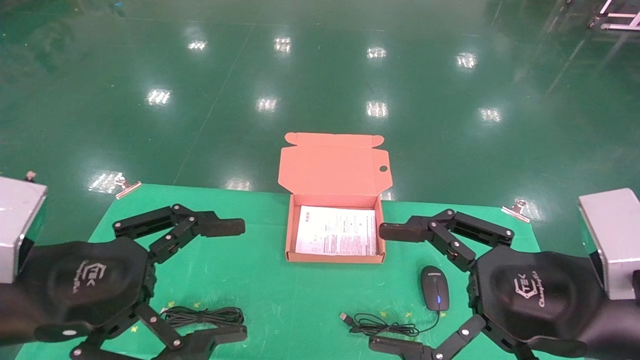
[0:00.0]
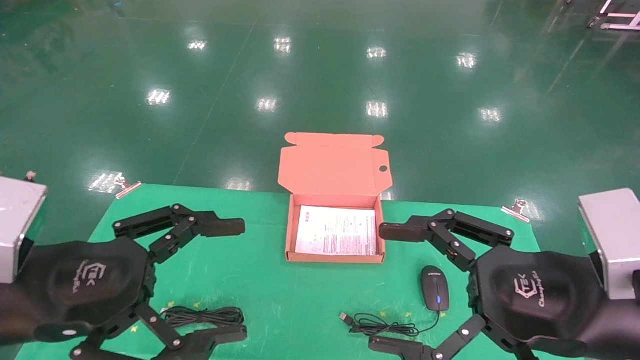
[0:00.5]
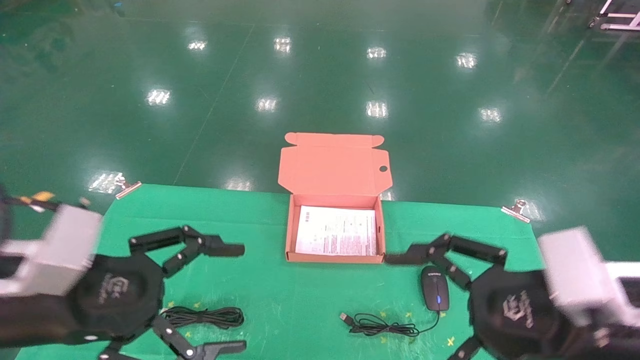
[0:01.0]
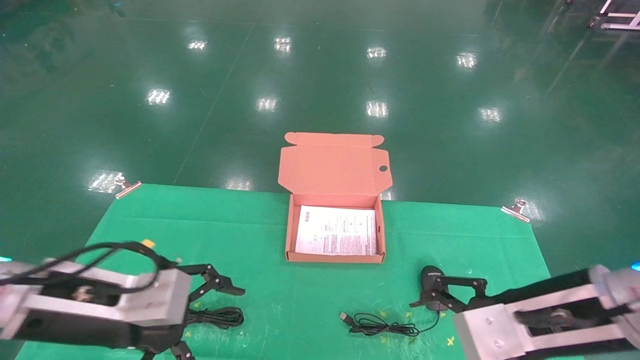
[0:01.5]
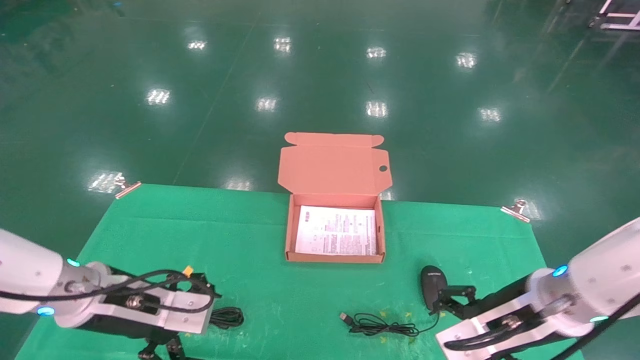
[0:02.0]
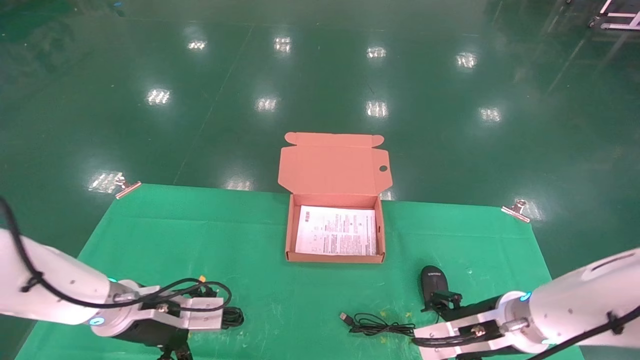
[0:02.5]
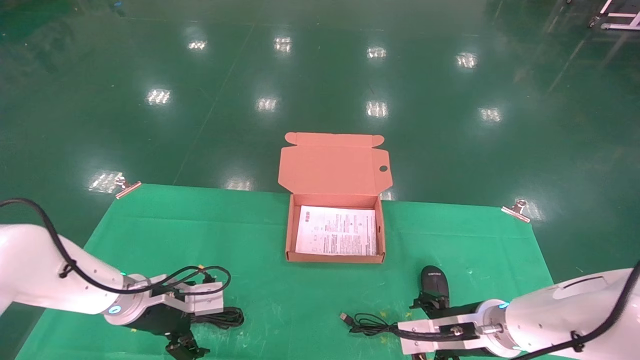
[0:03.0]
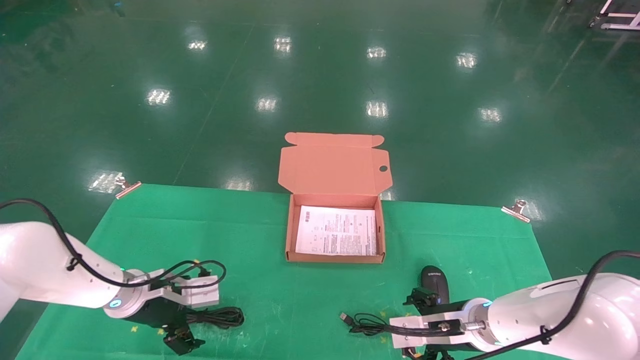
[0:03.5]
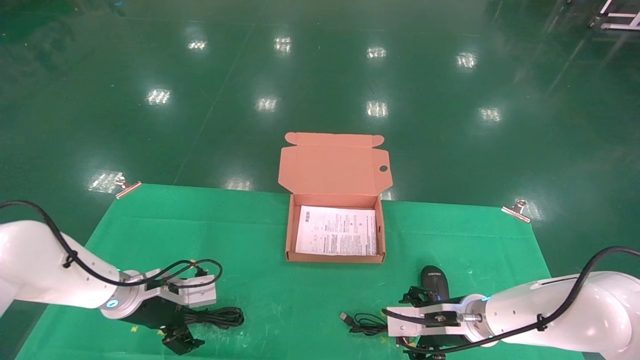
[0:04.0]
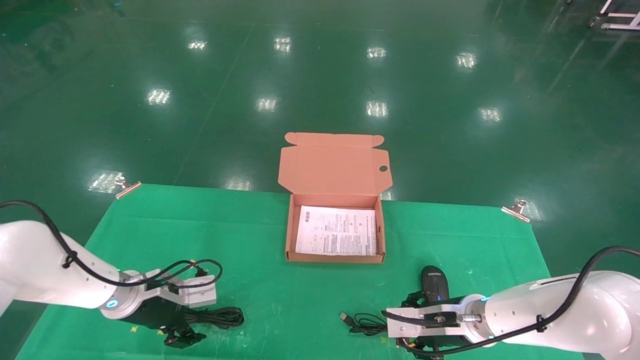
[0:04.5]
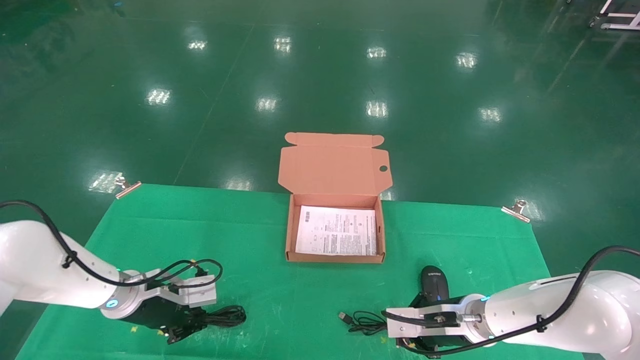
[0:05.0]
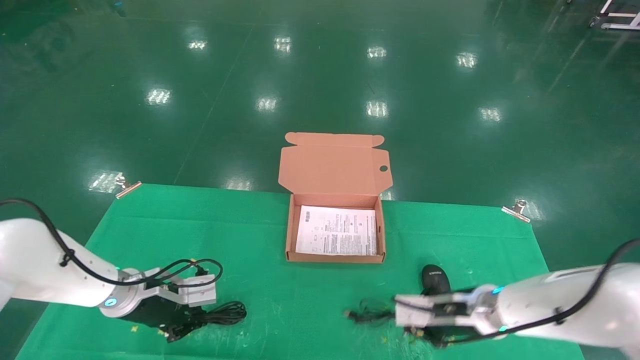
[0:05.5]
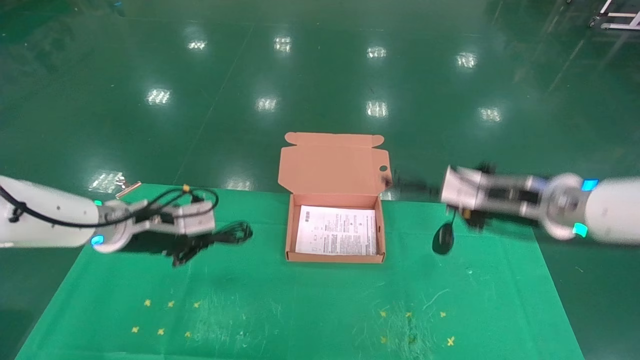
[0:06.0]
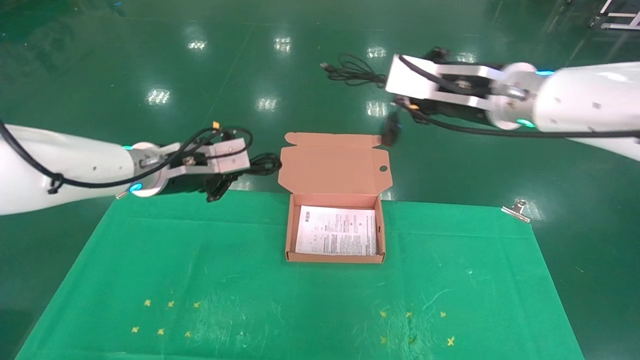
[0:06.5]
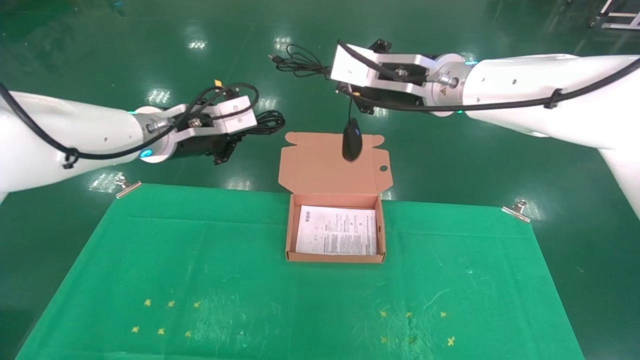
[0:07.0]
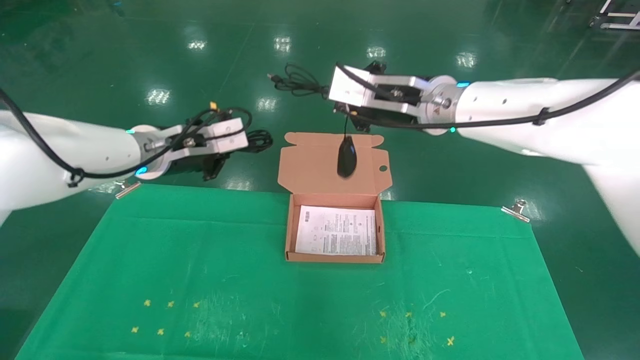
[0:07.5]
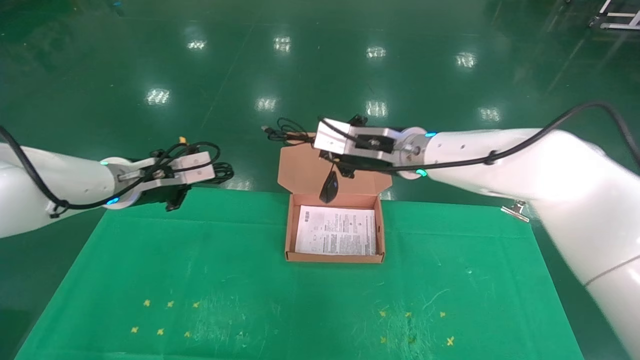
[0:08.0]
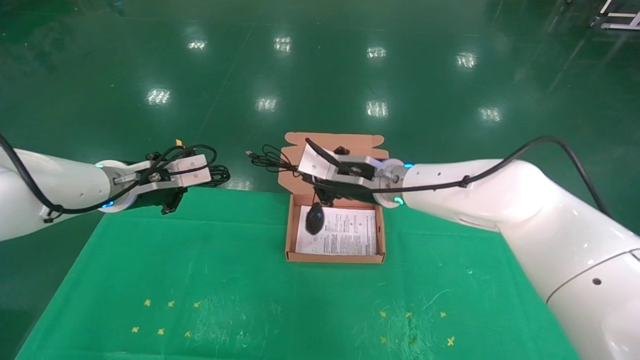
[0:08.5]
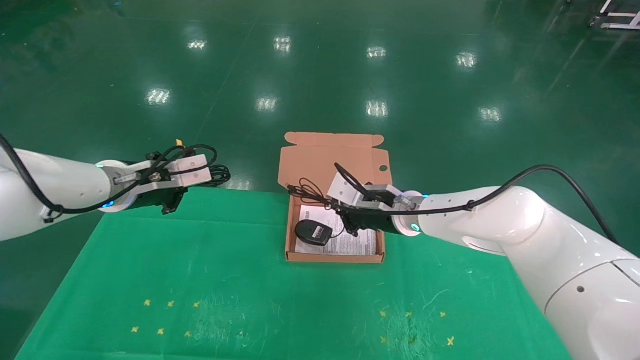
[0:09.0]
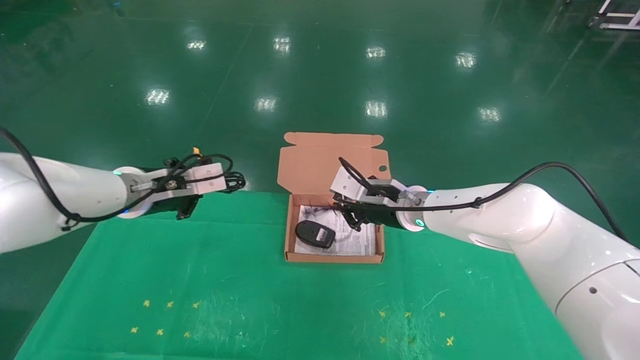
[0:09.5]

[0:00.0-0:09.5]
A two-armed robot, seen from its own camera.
Task of the whole recording: grasp data cable left put into box grasp mouse right put into box.
Step, 0:01.0 to 0:05.5: Grab and pick up both the mouse and power cord from the accessory packaging area at the same time.
0:00.0 to 0:02.0: Both grippers move forward and downward, about 15 cm.
0:02.0 to 0:04.0: The left gripper goes about 15 cm forward and downward; the right gripper heads downward and forward, covering some 15 cm.
0:04.0 to 0:05.5: The left gripper closes; the right gripper closes its fingers.
0:05.5 to 0:07.5: The right gripper goes about 30 cm upward and to the left. The left gripper moves upward, some 20 cm.
0:07.5 to 0:09.5: The right gripper heads downward, covering approximately 15 cm; the left gripper moves downward, roughly 5 cm.

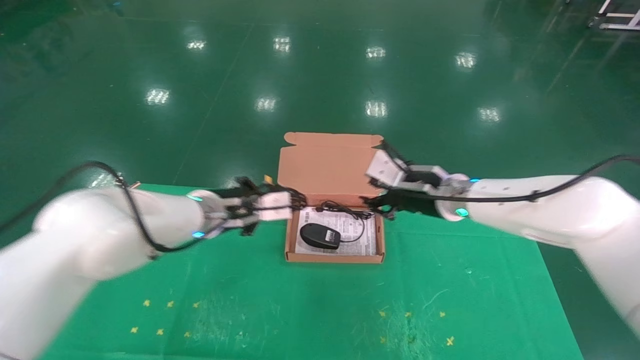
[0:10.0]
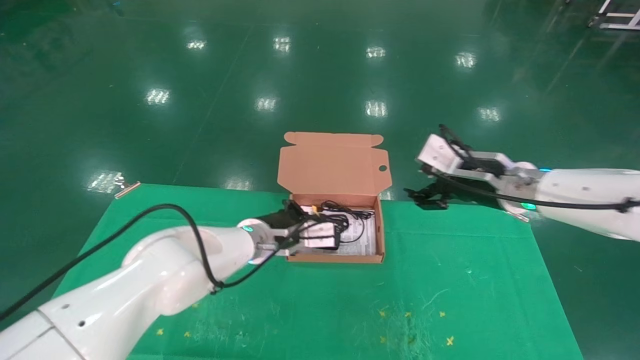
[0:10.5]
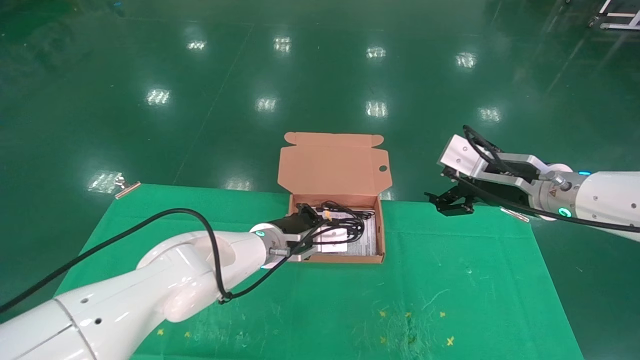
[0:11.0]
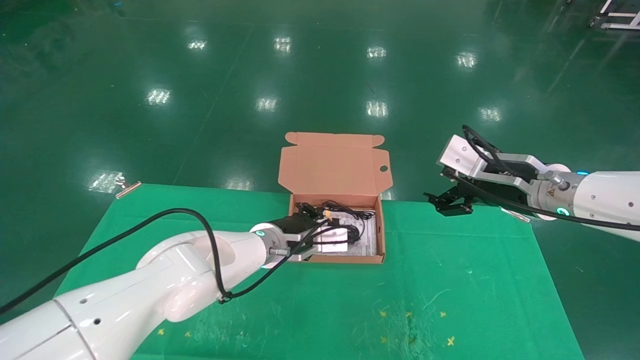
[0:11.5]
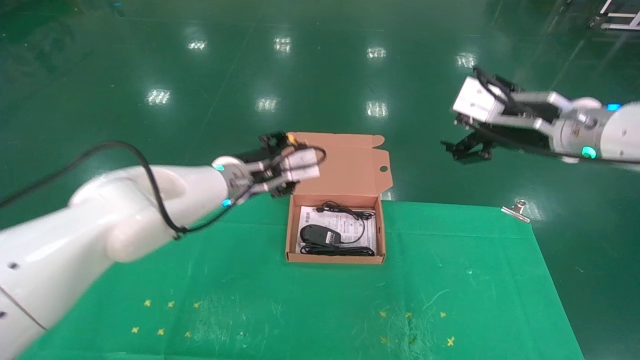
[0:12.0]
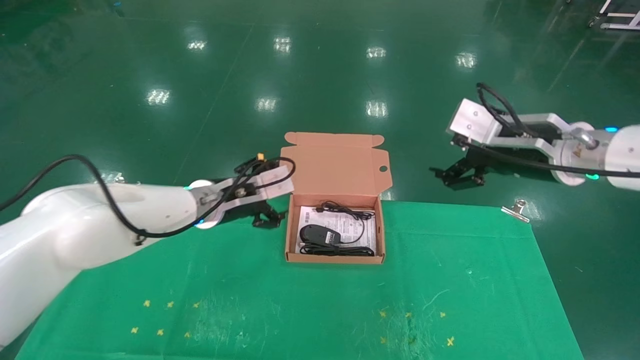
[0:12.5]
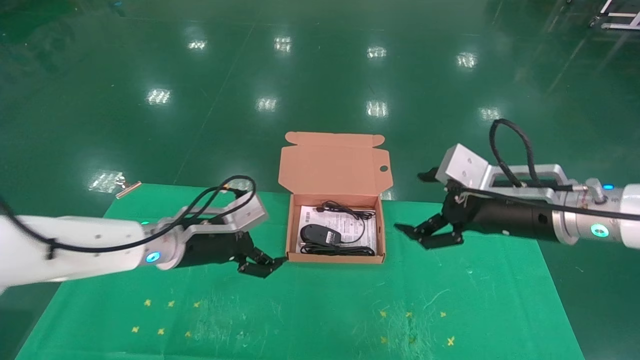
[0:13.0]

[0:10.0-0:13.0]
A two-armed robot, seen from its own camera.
Task of the whole recording: grasp data cable left put into box grasp mouse right put into box.
0:10.0 to 0:11.5: The left gripper heads to the right and downward, covering some 10 cm. The right gripper goes approximately 10 cm to the right and backward, and opens up.
0:11.5 to 0:13.0: The right gripper shifts about 5 cm backward; the left gripper is displaced to the left and backward by roughly 15 cm, and opens.

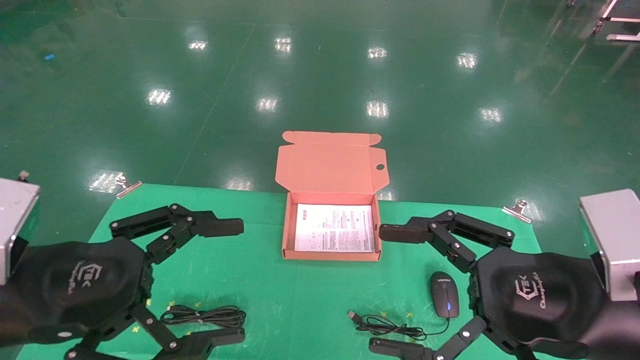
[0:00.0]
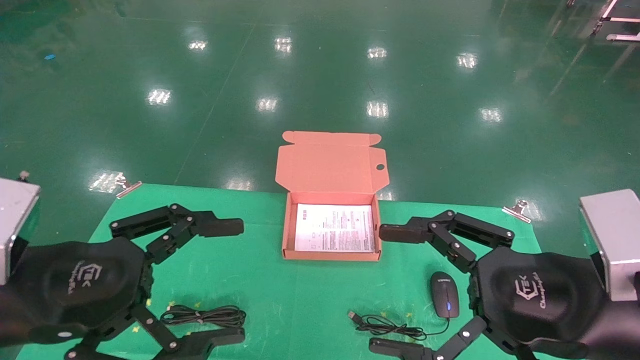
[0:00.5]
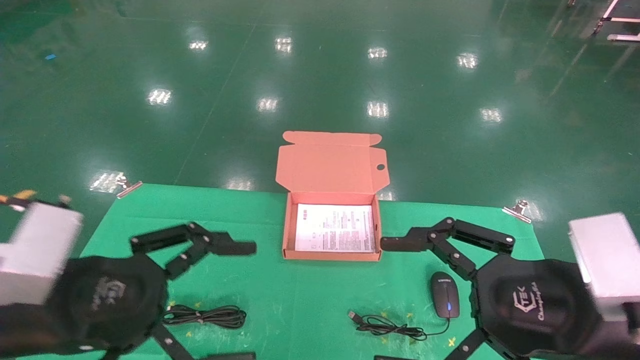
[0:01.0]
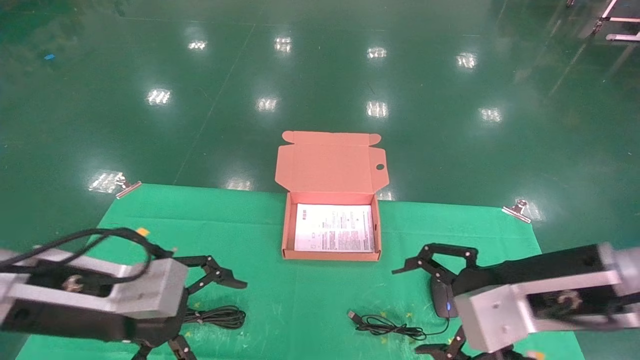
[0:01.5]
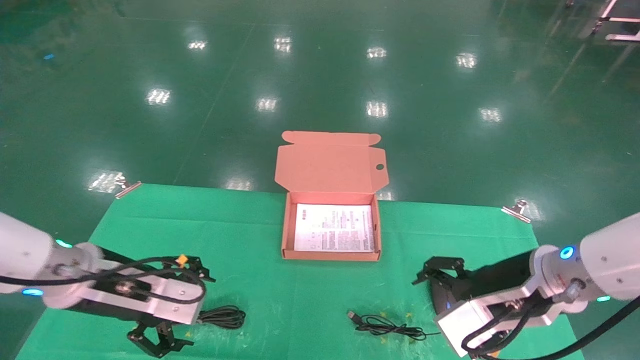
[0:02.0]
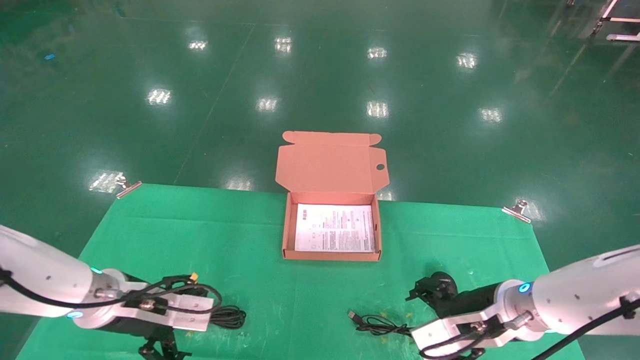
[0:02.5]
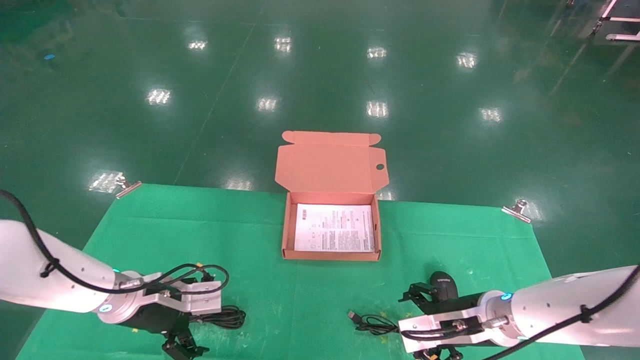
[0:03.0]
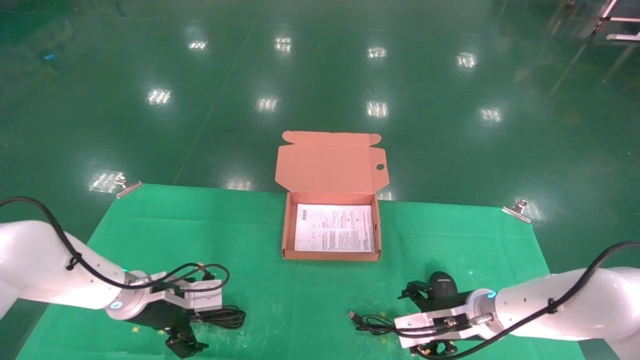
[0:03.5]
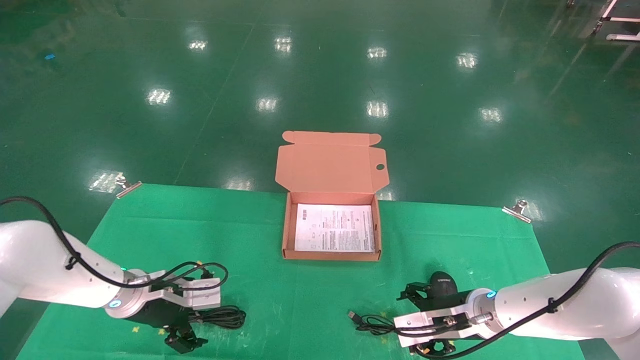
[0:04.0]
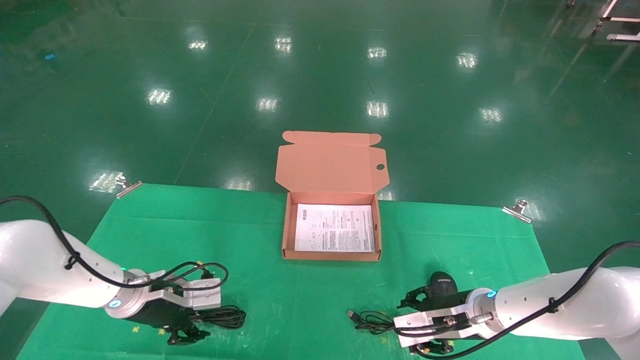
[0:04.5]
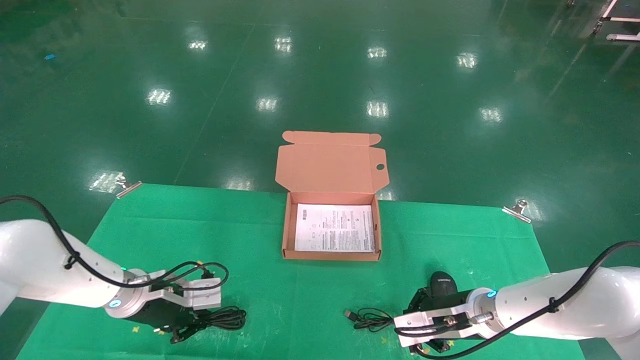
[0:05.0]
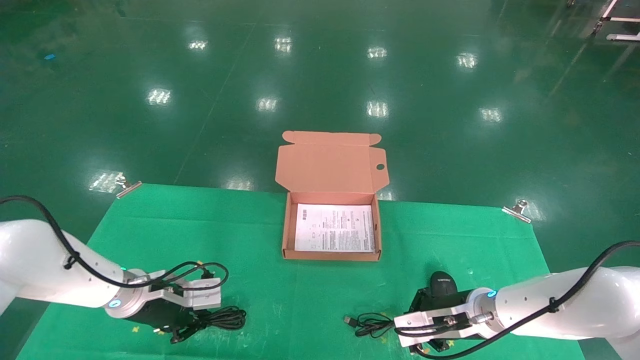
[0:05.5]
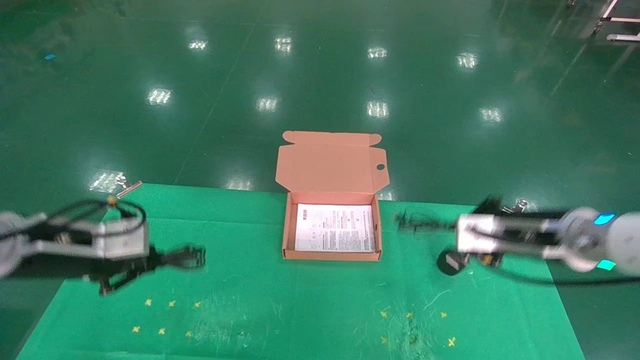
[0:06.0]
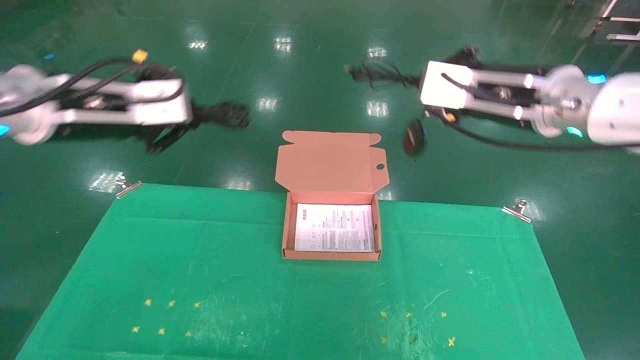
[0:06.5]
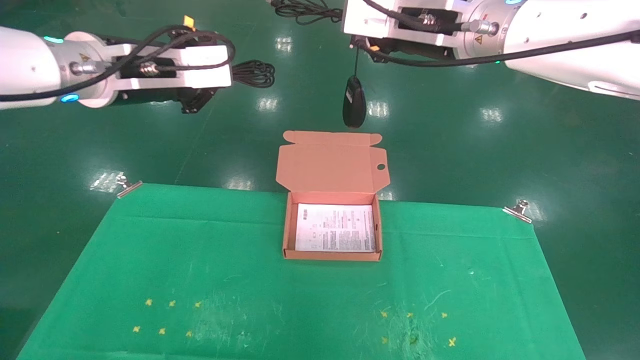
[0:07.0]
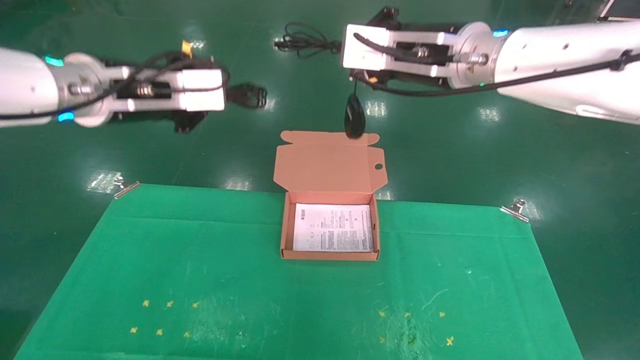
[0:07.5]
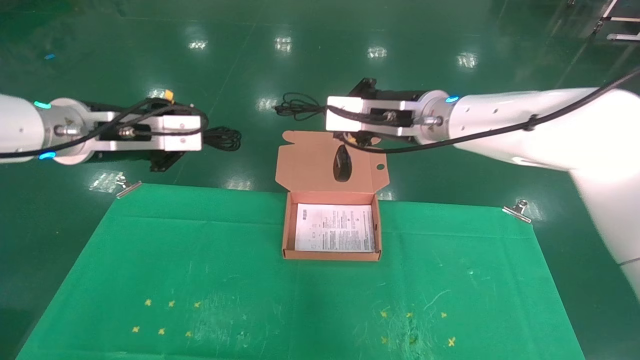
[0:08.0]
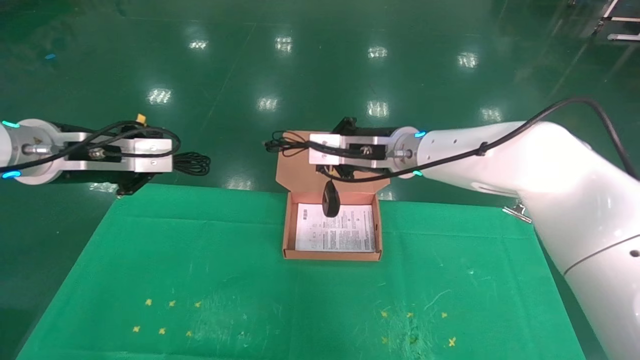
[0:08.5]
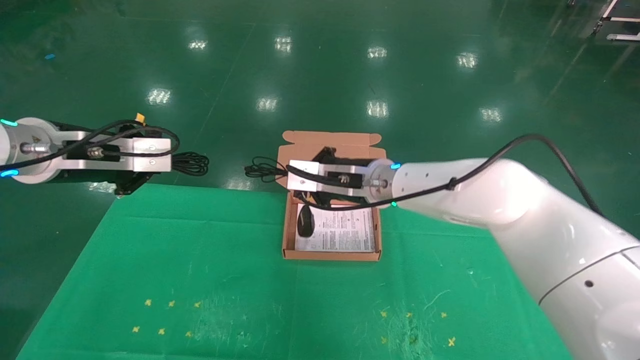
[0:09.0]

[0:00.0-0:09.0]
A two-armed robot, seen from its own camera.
Task of the whole recording: grasp data cable left put into box grasp mouse right put into box.
Step, 0:01.0 to 0:05.5: Grab and pick up both the mouse and power cord from the accessory packaging area at the same time.
0:00.0 to 0:02.0: The grippers both shift forward and downward by some 15 cm.
0:02.0 to 0:04.5: The right gripper shifts some 15 cm downward and forward, and closes its fingers, while the left gripper moves forward and downward, roughly 15 cm, and closes up.
0:04.5 to 0:07.0: Both grippers travel together upward, approximately 35 cm. The right gripper closes up. Meanwhile the left gripper closes up.
0:07.0 to 0:09.0: The right gripper shifts about 25 cm downward, to the left and forward; the left gripper goes some 10 cm downward and to the left.
